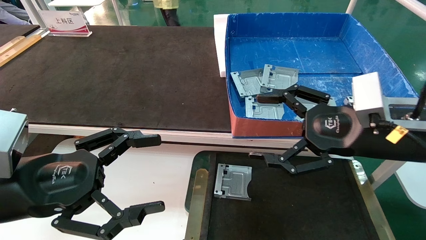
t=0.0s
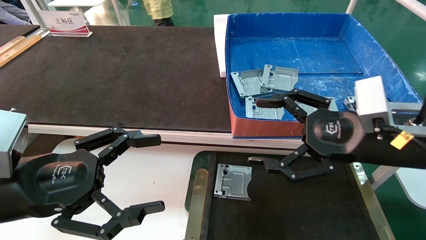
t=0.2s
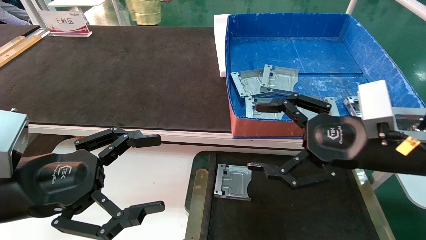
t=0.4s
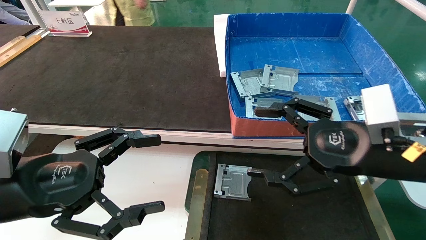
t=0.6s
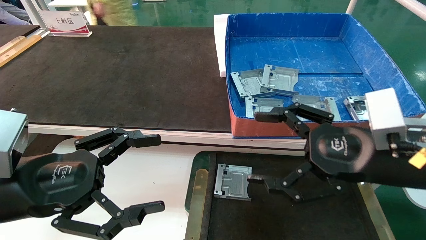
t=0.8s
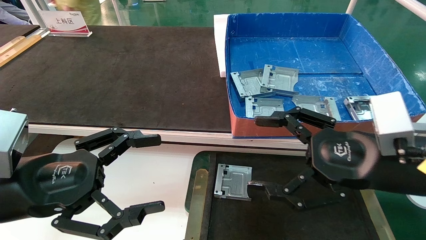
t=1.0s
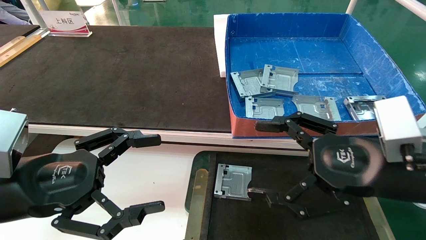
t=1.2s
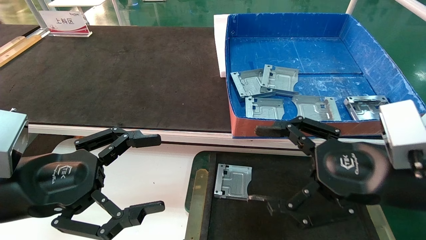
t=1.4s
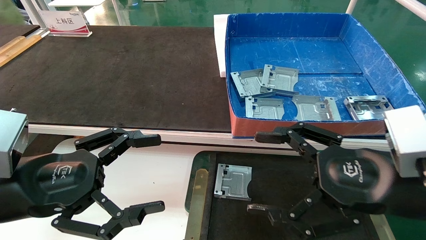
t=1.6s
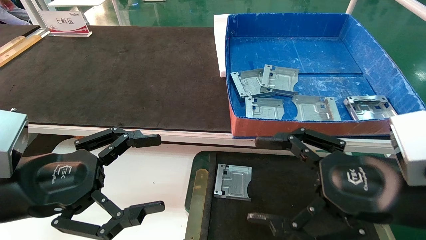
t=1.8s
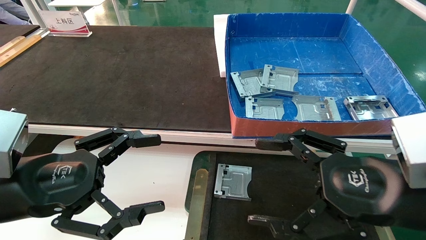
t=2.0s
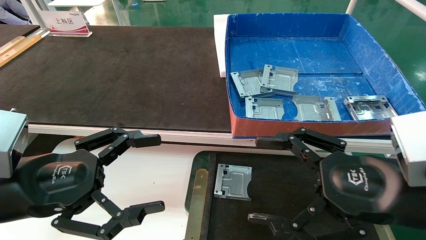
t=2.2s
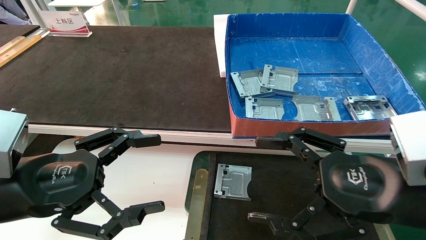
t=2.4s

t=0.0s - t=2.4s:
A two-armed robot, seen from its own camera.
Task of the whole recording: pick up parts and place them into a black container.
t=0.0s - t=1.2s: The right gripper moves backward, some 5 cm.
t=1.2s - t=2.4s: The grippers move only a little.
